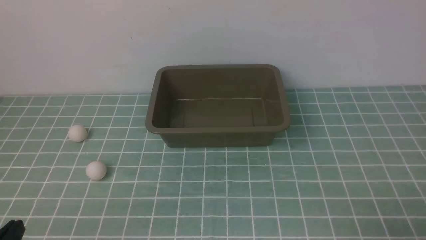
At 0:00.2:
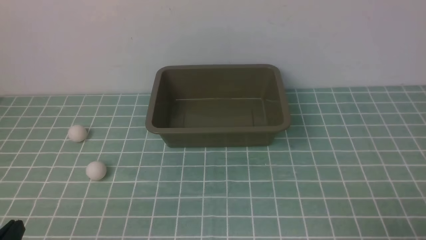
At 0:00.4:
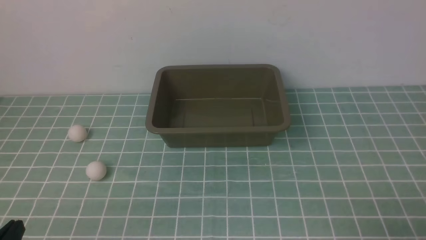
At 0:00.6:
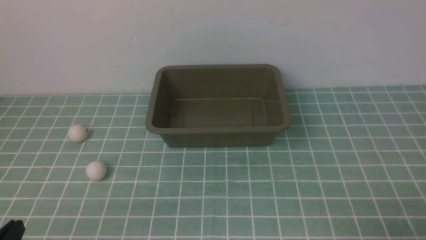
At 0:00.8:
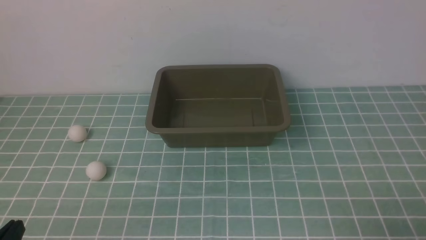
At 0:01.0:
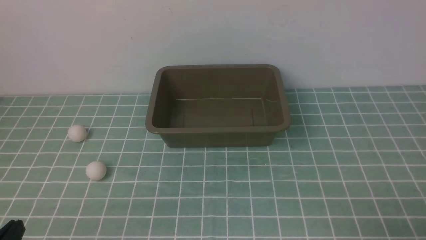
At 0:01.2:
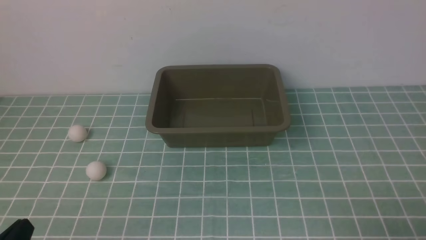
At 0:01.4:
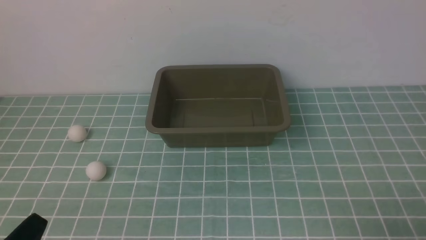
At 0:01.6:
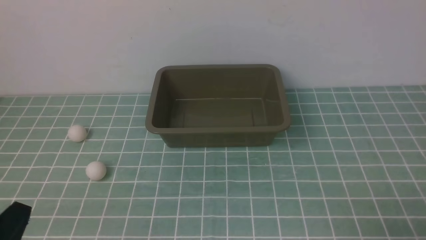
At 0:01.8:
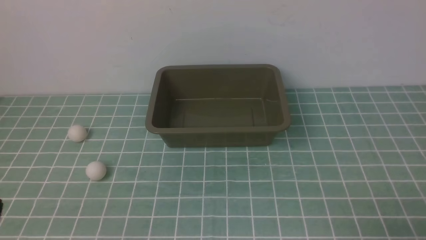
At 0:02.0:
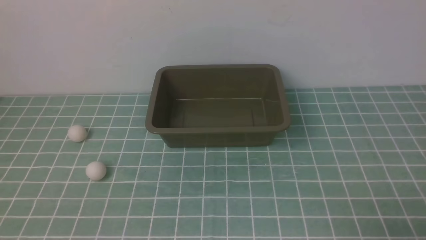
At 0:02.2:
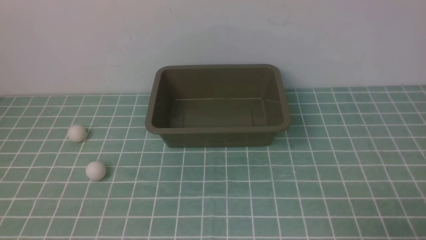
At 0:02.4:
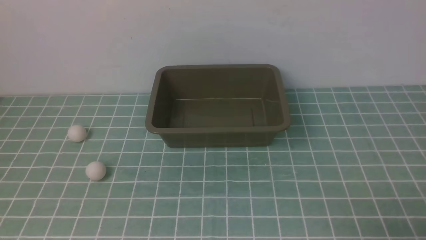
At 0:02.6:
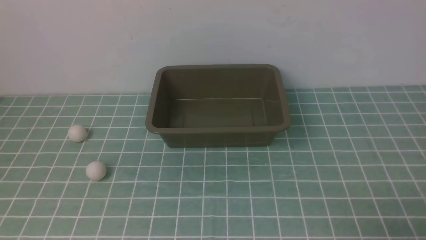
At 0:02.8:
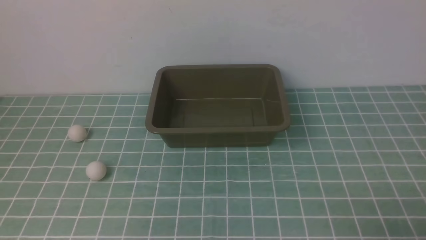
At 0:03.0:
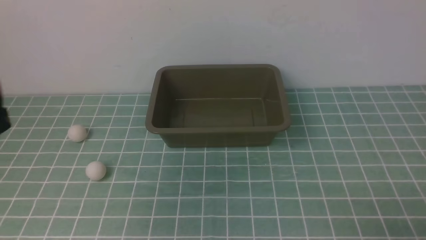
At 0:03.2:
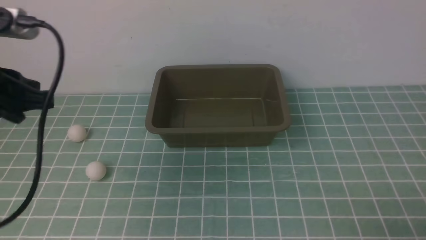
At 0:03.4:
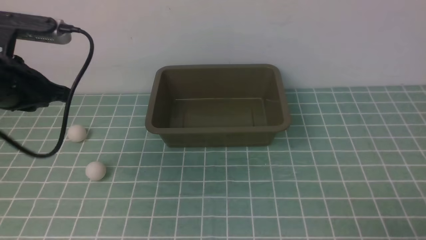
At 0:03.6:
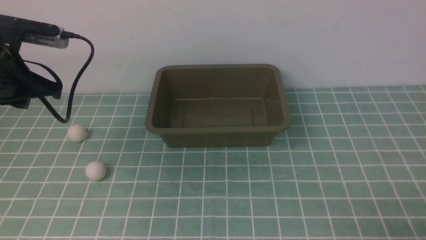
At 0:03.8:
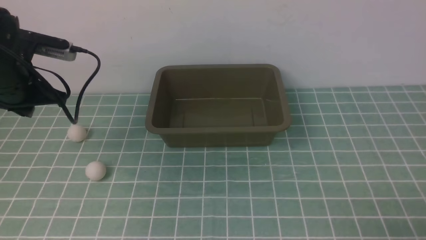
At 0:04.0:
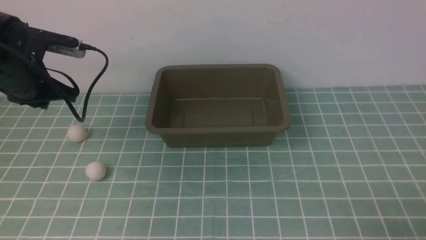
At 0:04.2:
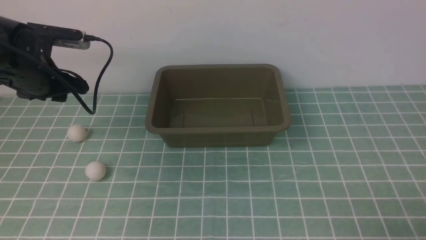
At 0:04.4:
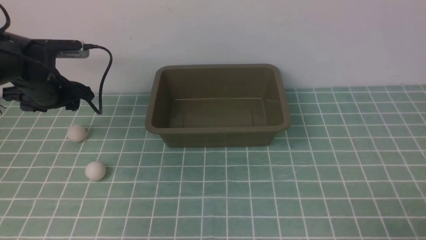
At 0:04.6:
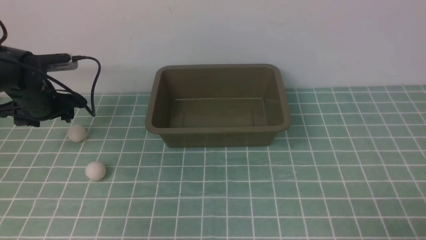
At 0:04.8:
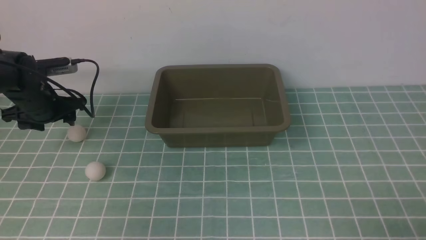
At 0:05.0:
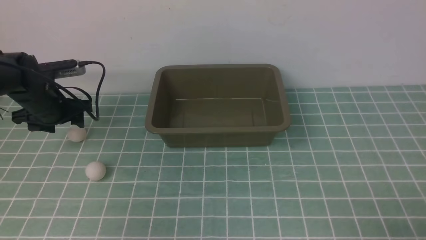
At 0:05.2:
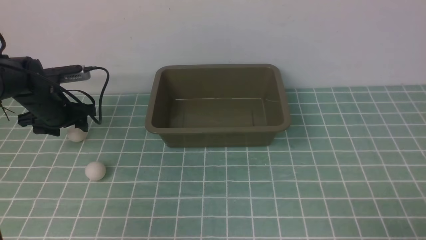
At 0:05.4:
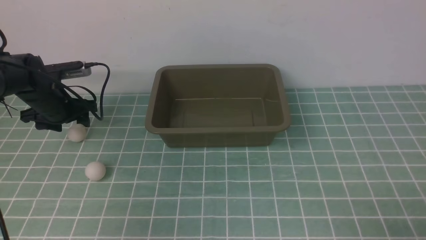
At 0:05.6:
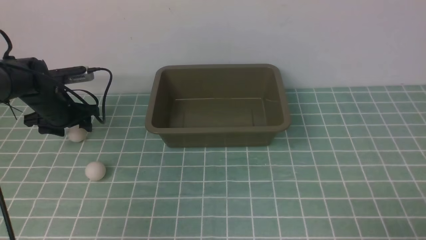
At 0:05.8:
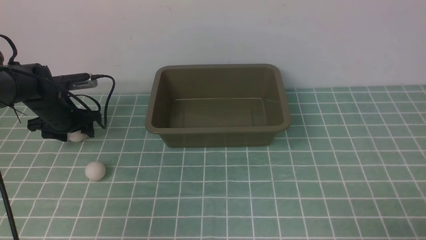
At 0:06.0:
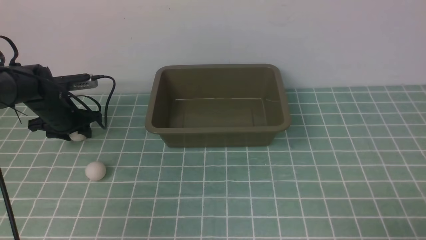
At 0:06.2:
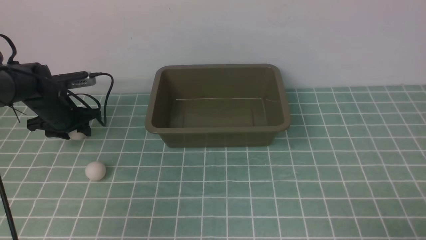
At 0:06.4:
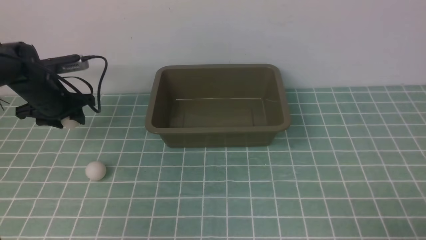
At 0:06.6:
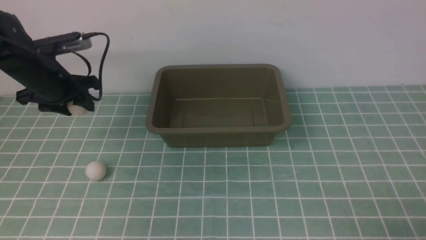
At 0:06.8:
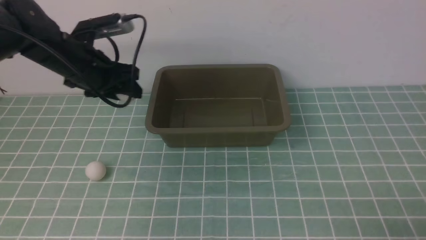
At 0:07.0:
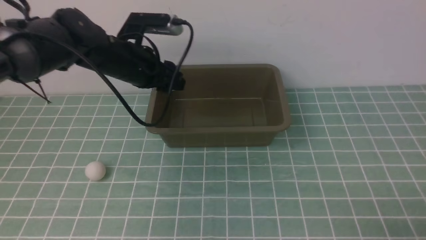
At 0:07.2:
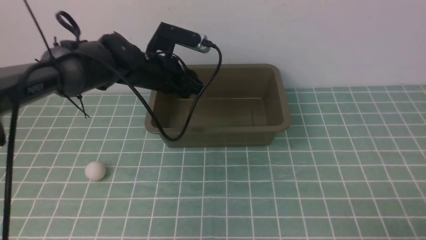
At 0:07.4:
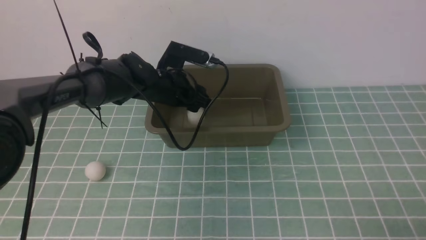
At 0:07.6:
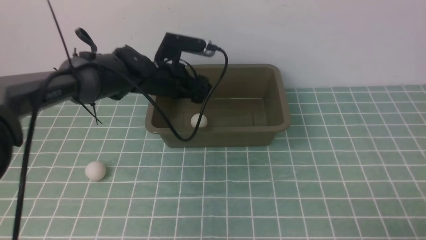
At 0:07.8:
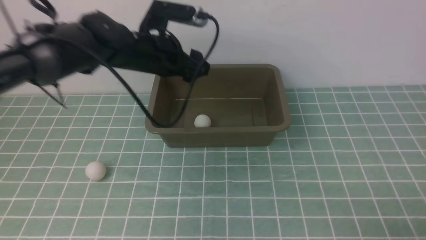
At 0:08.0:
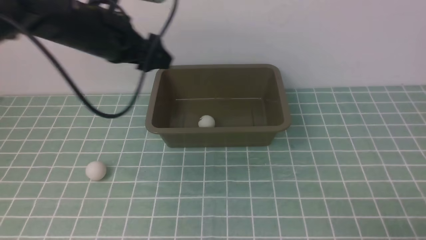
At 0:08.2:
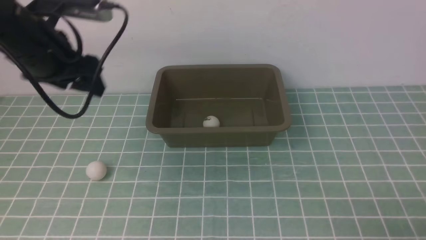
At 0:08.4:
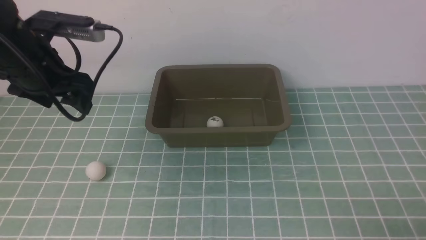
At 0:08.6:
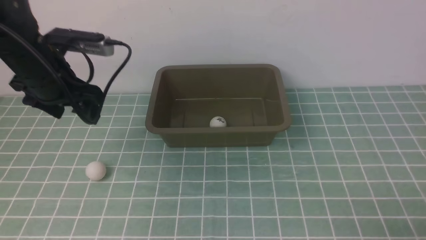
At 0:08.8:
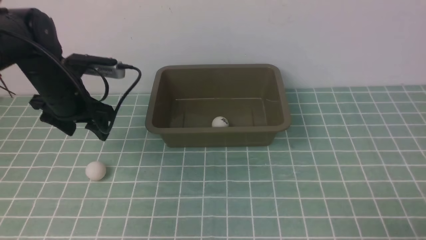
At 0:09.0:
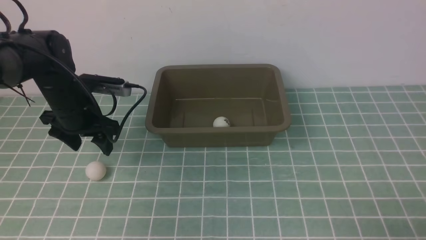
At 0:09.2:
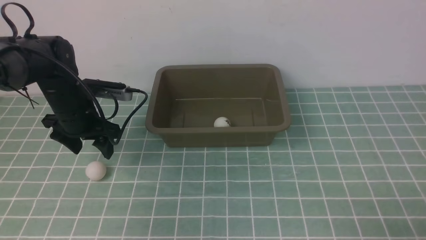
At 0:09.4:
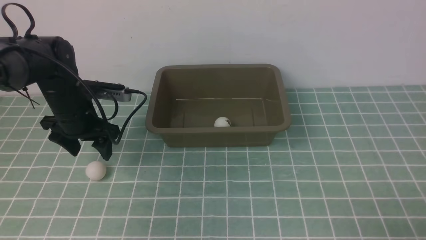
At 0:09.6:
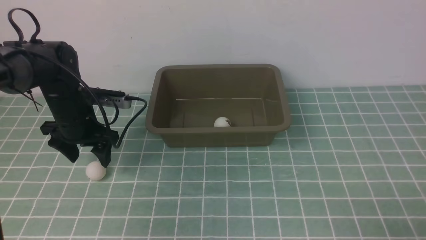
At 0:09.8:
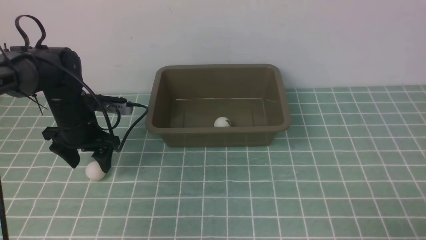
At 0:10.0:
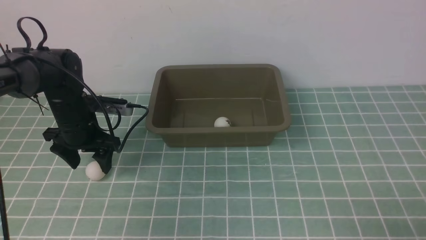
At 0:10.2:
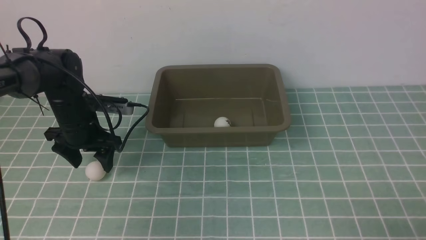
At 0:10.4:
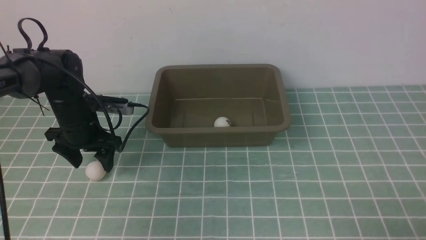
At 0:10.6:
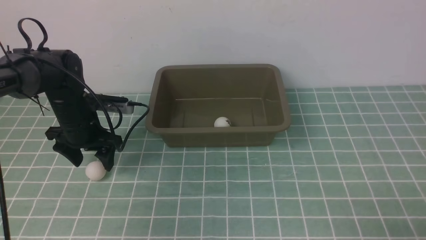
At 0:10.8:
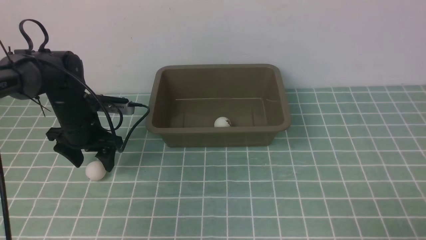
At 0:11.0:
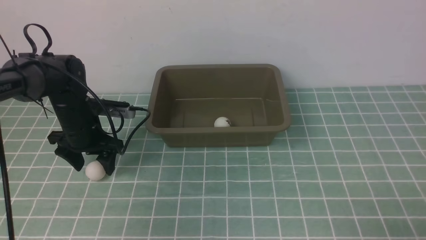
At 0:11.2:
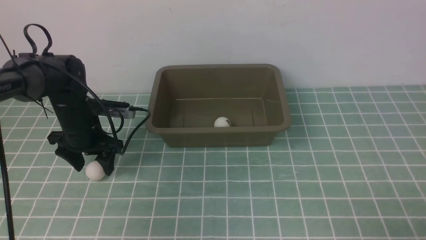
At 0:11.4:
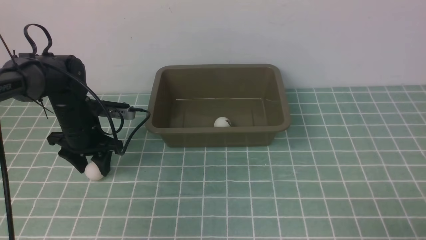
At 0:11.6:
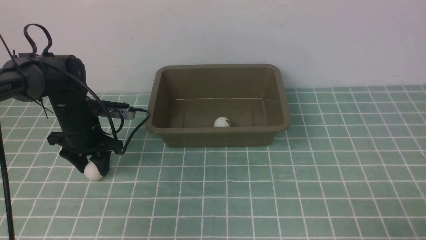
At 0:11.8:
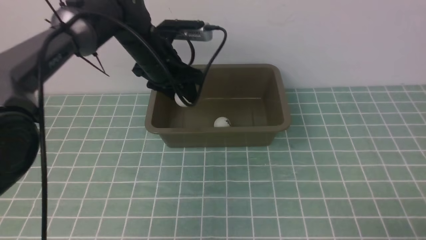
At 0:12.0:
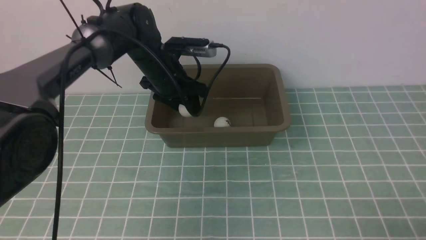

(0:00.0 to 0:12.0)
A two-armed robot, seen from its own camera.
Step, 0:00.0 - 0:06.4: use the left arm to clamp the table tennis ball closest to it.
Step, 0:06.6 - 0:07.6: use the left arm to put the table tennis ball into the box.
Step, 0:07.8 - 0:11.6: use the left arm to clamp the table tennis ball closest to it.
0:01.6 - 0:03.0: The left gripper moves upward and forward, approximately 20 cm.
0:03.0 - 0:04.4: The left gripper heads forward and downward, covering some 30 cm, and opens.
0:04.4 - 0:06.0: The left gripper moves downward, some 10 cm.
0:06.0 - 0:07.6: The left gripper moves to the right and upward, approximately 25 cm.
0:07.6 - 0:09.0: The left gripper heads to the left, covering roughly 15 cm.
0:09.0 - 0:10.4: The grippers move only a little.
0:10.4 - 0:12.0: The left gripper is displaced to the right, forward and upward by approximately 15 cm, and closes up.

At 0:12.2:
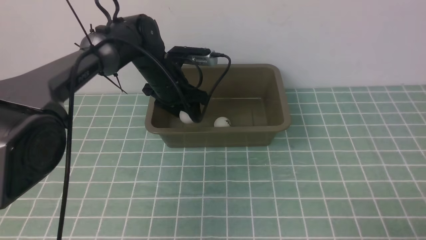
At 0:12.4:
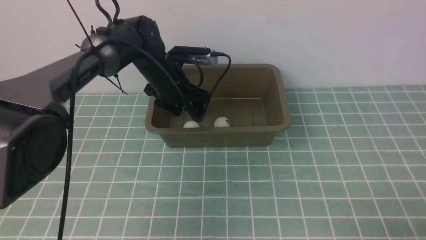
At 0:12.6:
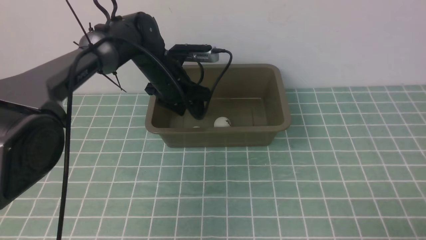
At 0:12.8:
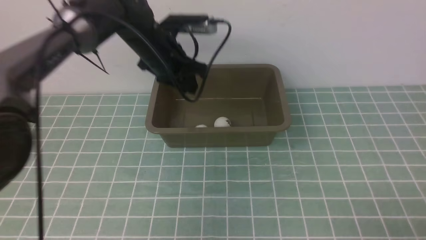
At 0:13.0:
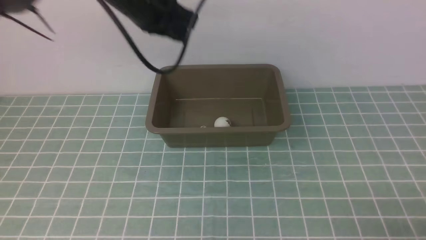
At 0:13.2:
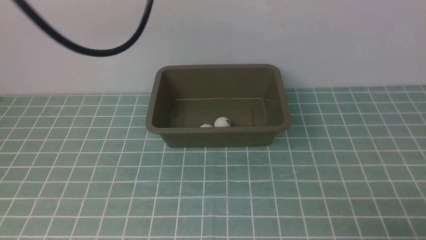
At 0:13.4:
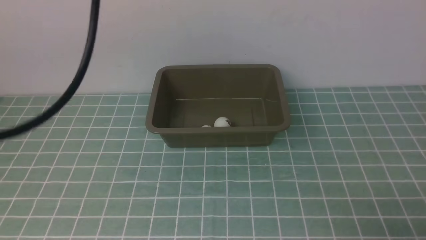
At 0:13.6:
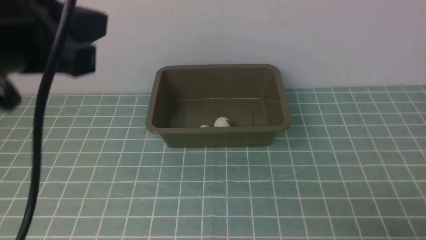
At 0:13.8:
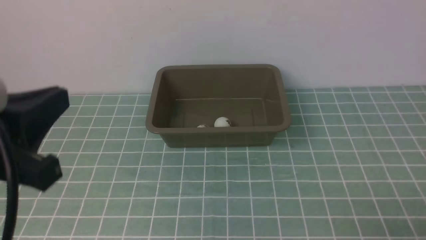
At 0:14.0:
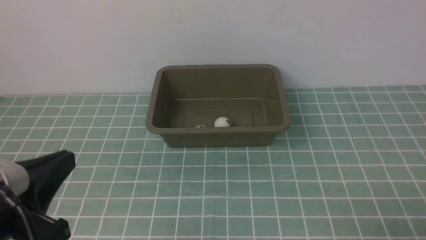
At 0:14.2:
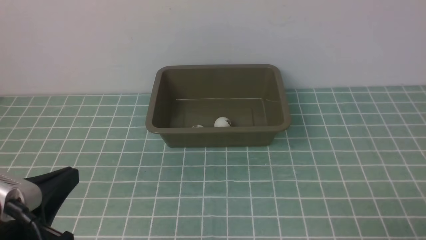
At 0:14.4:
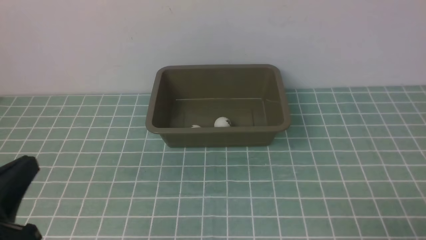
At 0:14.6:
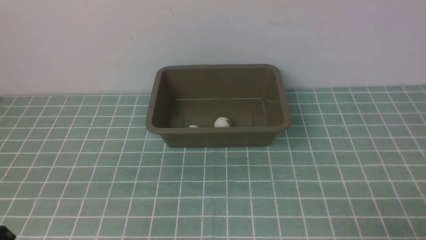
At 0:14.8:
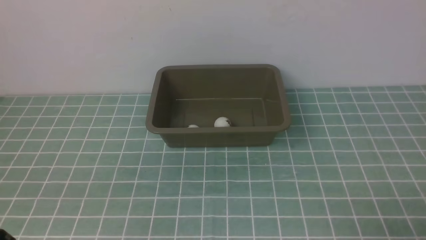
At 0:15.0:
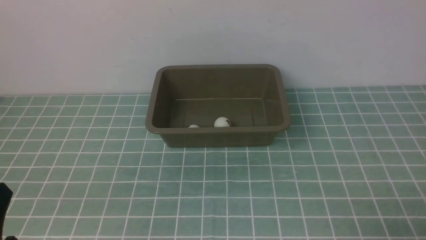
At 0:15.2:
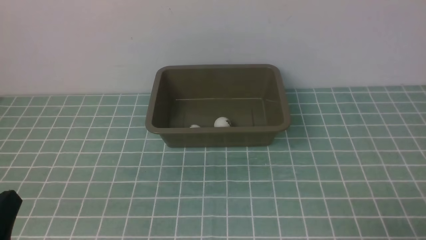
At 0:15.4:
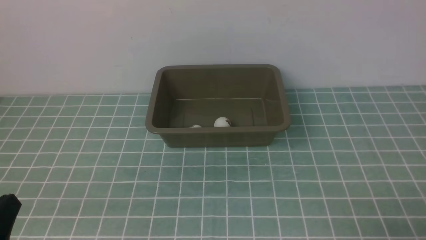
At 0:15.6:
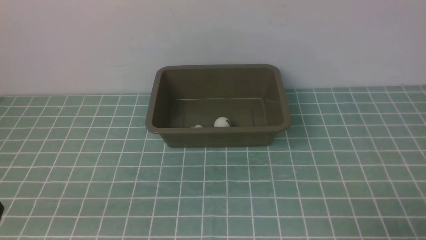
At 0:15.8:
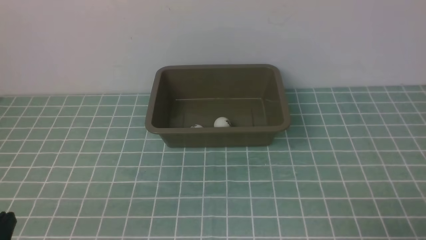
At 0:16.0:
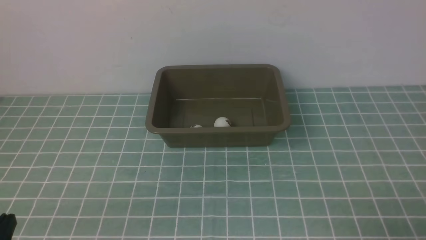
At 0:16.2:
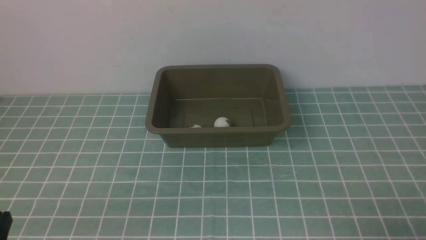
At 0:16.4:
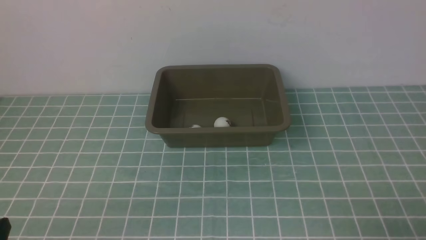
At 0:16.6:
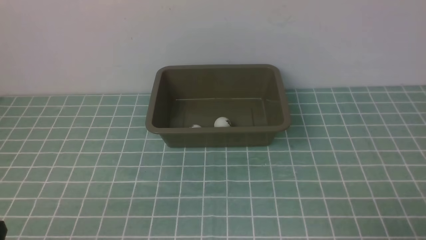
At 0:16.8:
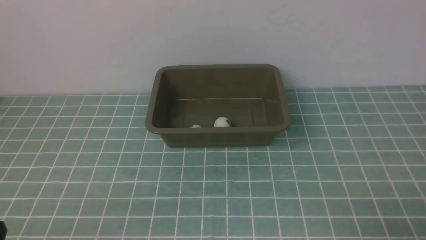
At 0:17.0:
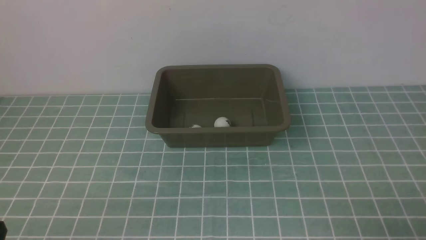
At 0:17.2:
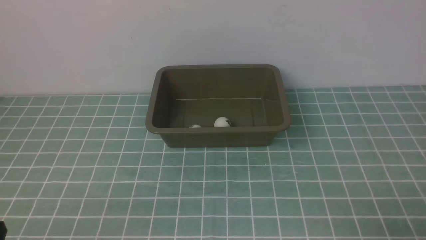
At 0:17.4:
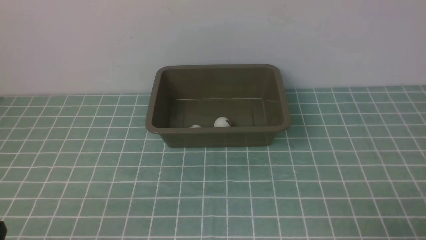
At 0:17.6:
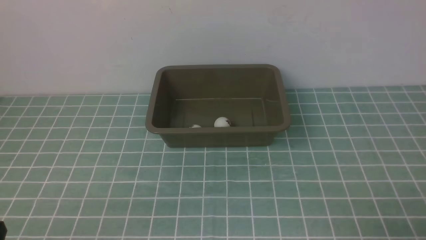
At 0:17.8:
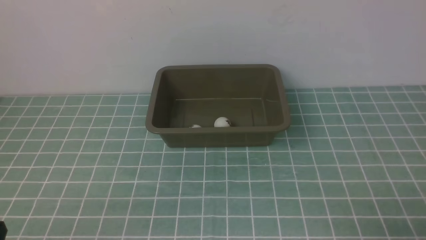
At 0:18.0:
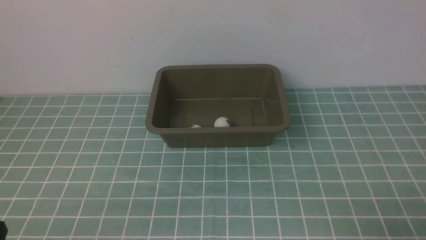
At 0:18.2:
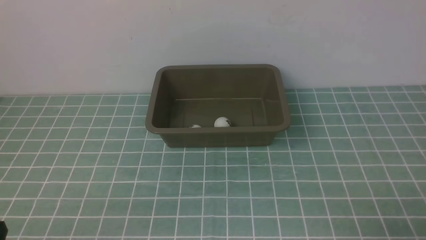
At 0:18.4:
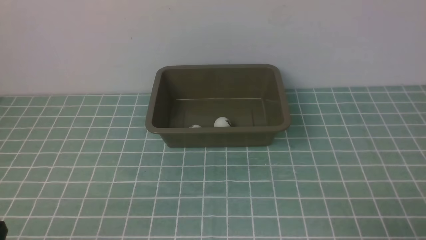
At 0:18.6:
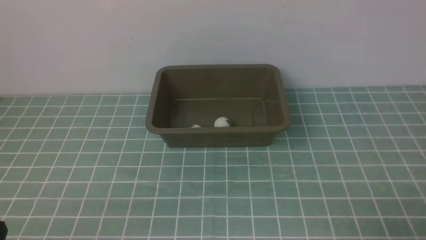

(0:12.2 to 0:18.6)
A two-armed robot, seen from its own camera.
Step, 0:12.2 - 0:12.8: use the left arm to put the table tennis ball into the box.
0:12.2 - 0:13.8: The left gripper shifts approximately 35 cm backward and upward, and closes.
0:13.8 - 0:15.4: The left gripper travels downward and backward by approximately 15 cm.
0:17.0 - 0:18.6: Both grippers stay put.
